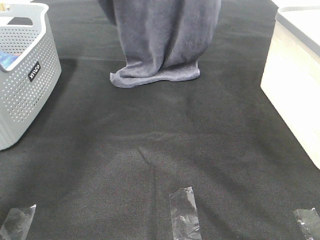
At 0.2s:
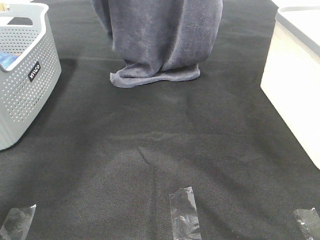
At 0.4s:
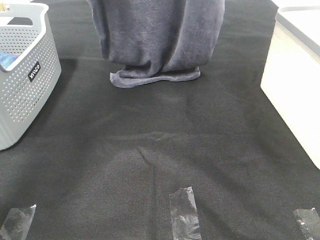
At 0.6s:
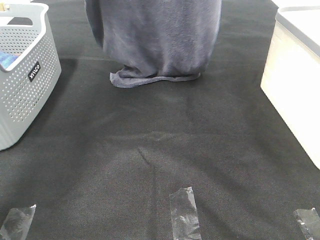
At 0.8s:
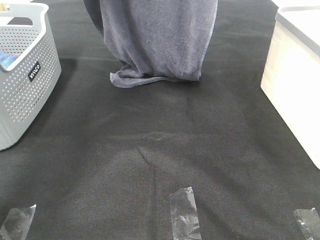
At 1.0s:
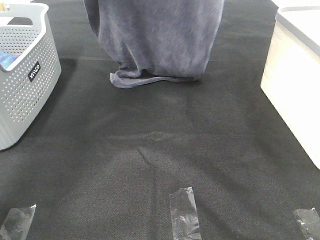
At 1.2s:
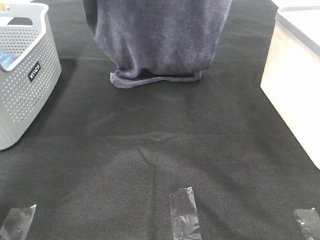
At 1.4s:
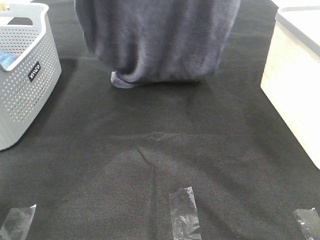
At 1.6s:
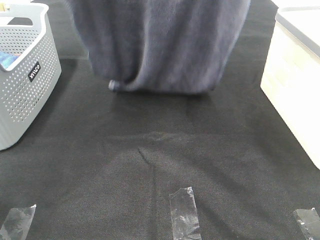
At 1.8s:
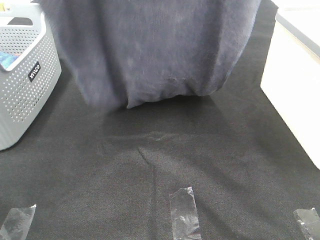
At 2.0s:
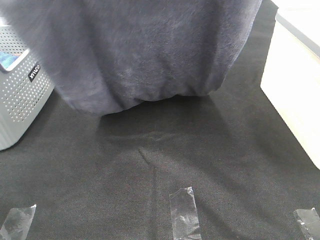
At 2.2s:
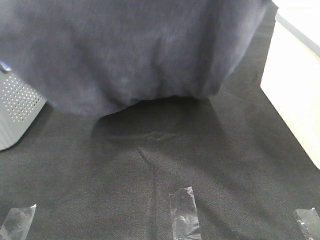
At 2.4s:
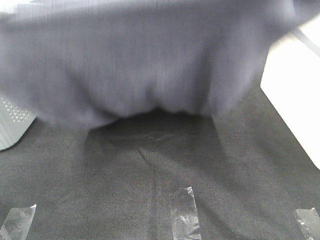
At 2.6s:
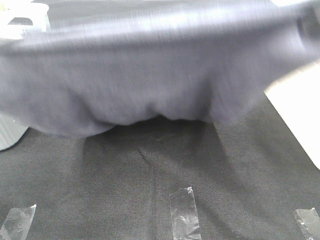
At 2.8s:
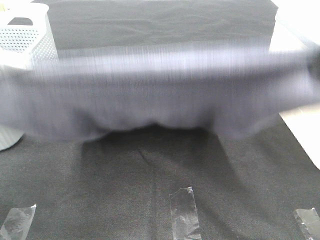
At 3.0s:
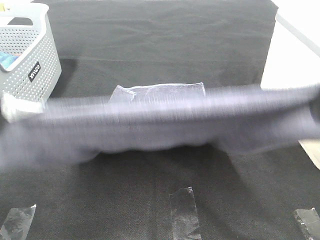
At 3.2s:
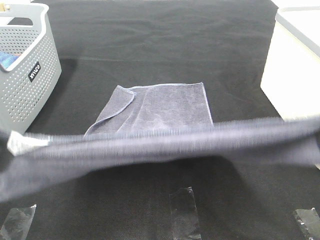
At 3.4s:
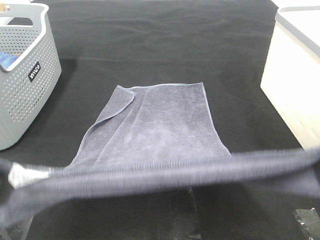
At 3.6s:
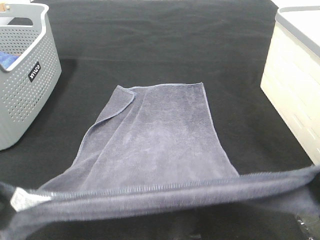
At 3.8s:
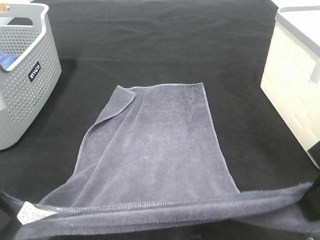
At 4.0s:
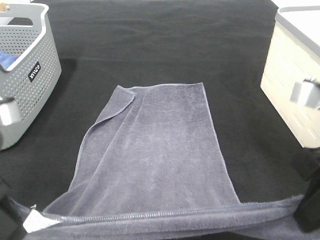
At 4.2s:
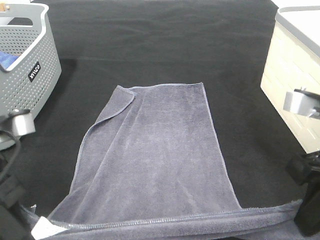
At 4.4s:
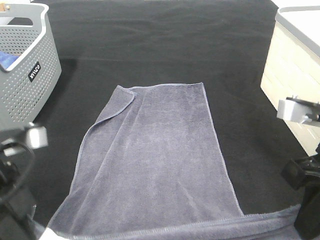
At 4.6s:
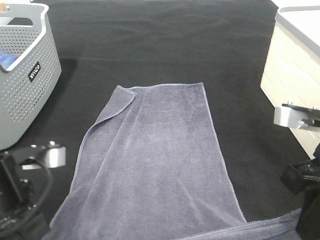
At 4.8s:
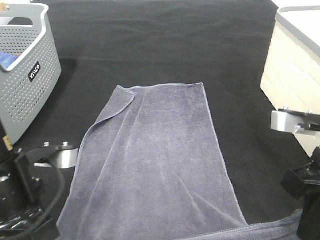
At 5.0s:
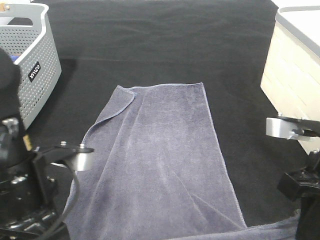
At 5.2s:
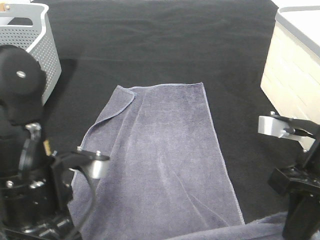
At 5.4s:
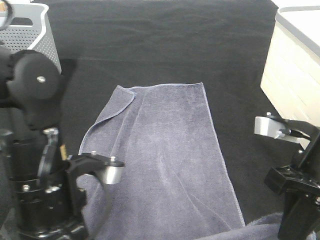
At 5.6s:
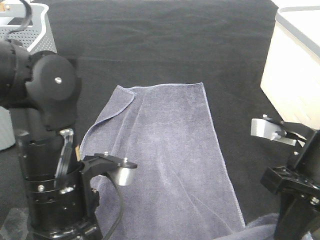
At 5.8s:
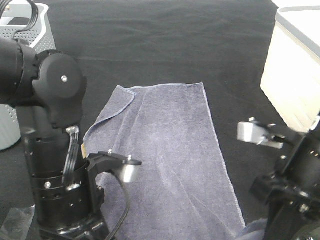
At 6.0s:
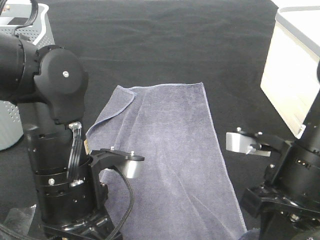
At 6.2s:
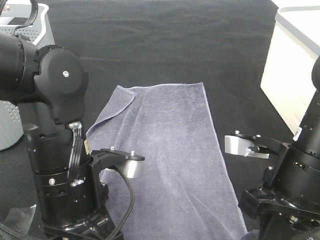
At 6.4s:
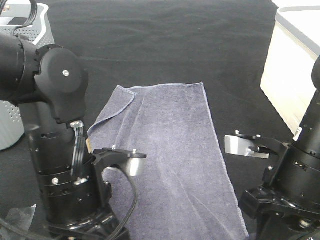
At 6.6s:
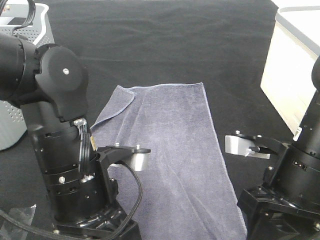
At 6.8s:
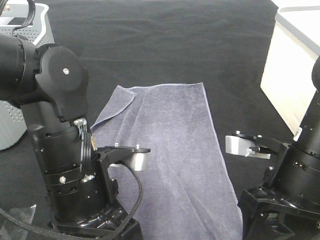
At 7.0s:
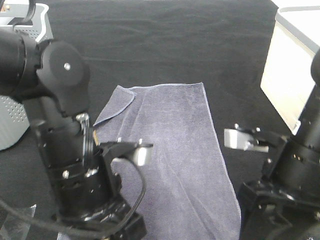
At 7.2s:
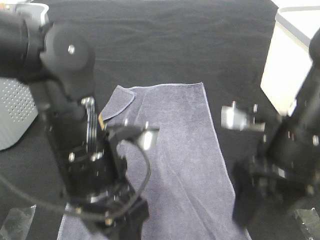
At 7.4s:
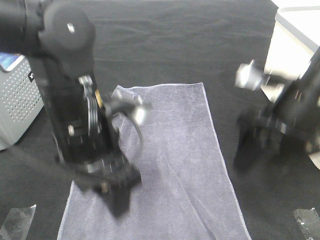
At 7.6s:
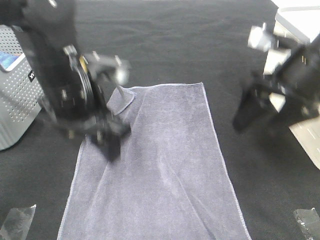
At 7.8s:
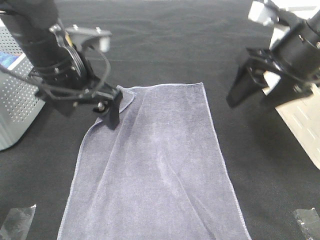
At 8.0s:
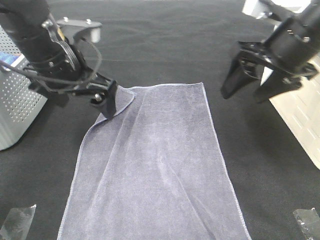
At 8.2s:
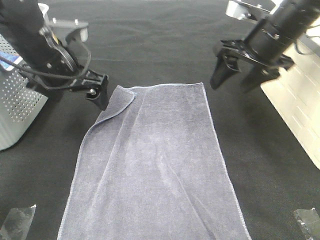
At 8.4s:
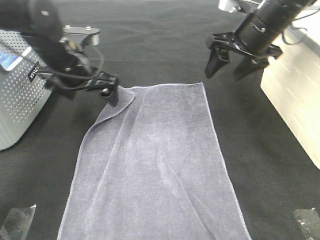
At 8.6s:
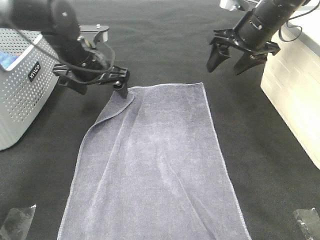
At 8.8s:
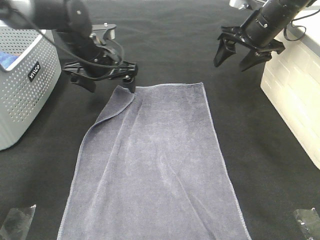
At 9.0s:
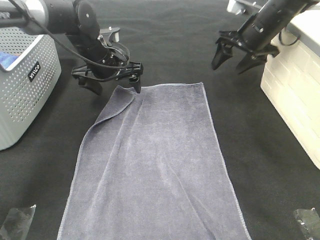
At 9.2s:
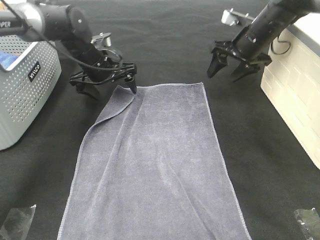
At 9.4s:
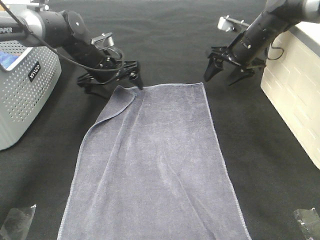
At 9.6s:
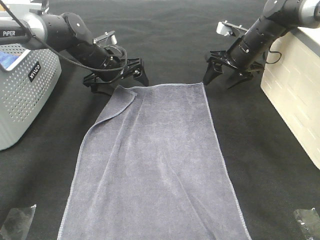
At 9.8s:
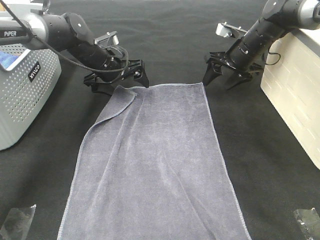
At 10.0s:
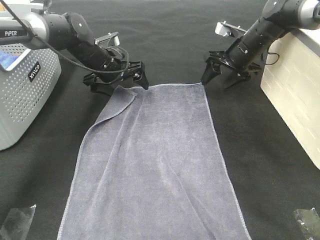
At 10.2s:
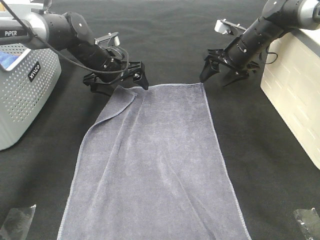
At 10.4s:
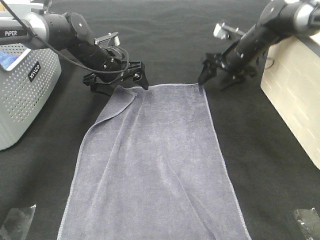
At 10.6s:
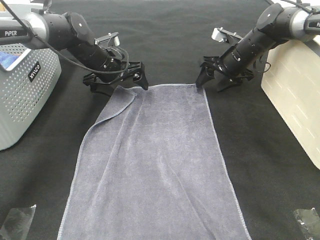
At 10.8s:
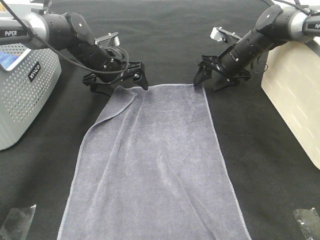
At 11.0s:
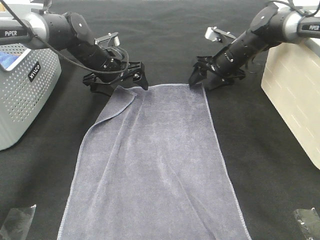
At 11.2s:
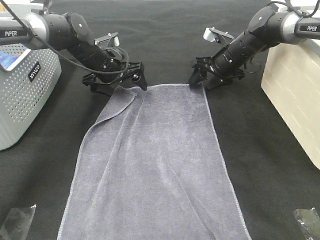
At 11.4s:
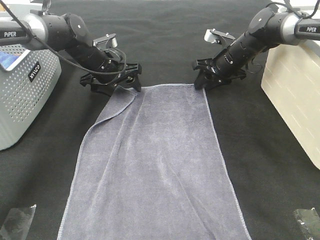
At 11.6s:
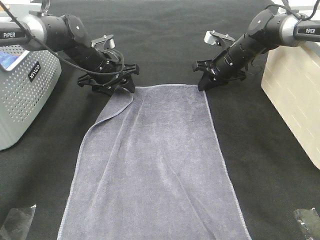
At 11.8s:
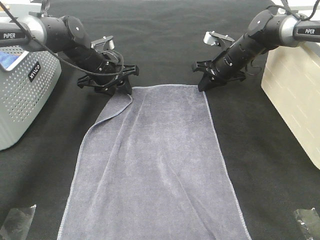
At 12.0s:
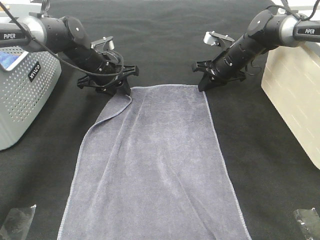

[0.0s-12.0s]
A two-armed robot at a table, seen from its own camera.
Task of the whole recording: Remove the towel and place it.
Step, 2.0s to 10.6s: Left hand:adjust the gray towel.
Step, 2.0s to 10.6s: Right hand:adjust the gray towel.
0.0s to 1.6s: Both grippers move backward, some 15 cm.
1.6s to 3.0s: Both grippers move downward and backward, approximately 20 cm.
3.0s to 4.4s: The grippers both shift downward by approximately 15 cm.
4.4s to 6.0s: The left gripper shifts roughly 10 cm to the right; the right gripper goes roughly 5 cm downward.
6.0s to 7.6s: The right gripper shifts roughly 10 cm forward and upward, and opens up, while the left gripper shifts approximately 10 cm forward, and opens its fingers.
7.6s to 9.0s: Both grippers travel together forward, approximately 20 cm.
9.0s to 10.4s: The right gripper goes approximately 10 cm downward.
10.4s to 12.0s: The left gripper closes its fingers. Meanwhile the right gripper closes its fingers.

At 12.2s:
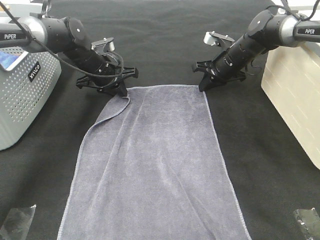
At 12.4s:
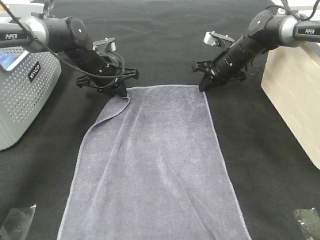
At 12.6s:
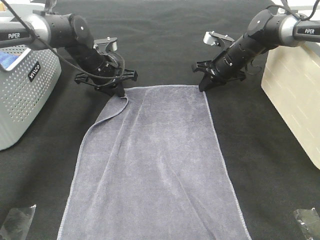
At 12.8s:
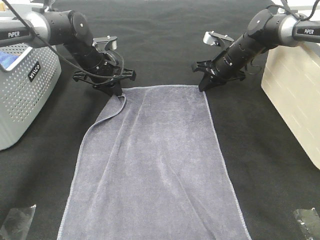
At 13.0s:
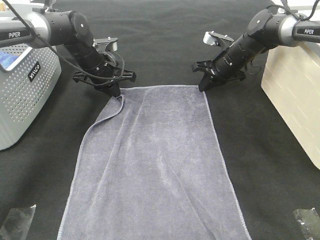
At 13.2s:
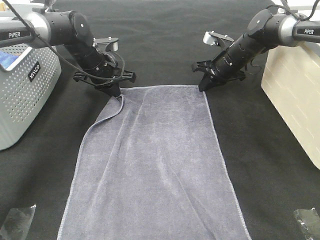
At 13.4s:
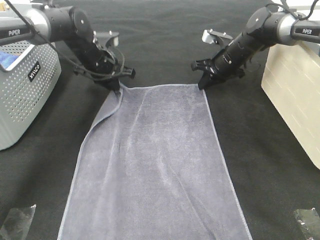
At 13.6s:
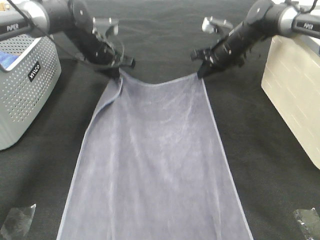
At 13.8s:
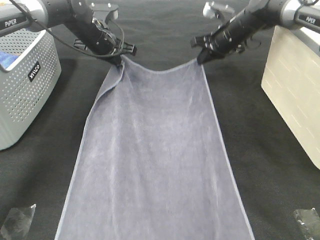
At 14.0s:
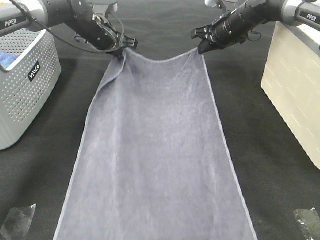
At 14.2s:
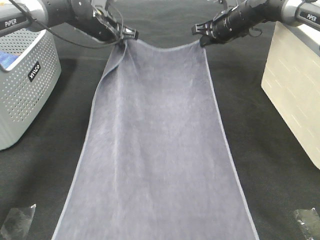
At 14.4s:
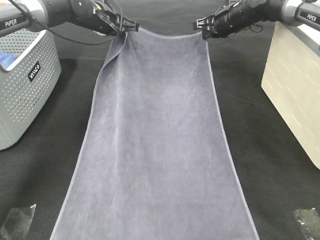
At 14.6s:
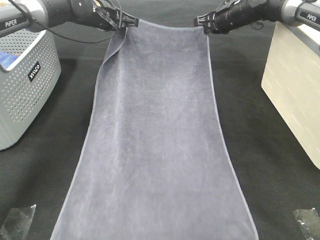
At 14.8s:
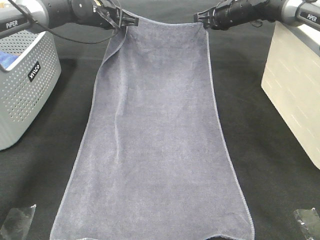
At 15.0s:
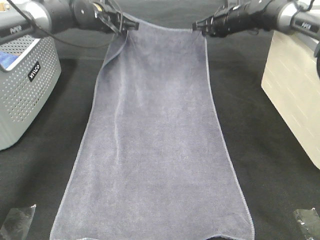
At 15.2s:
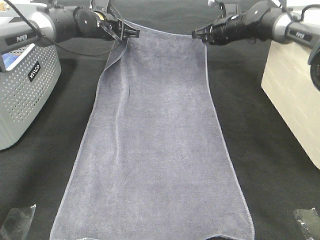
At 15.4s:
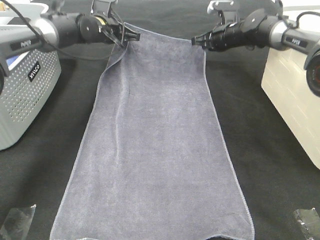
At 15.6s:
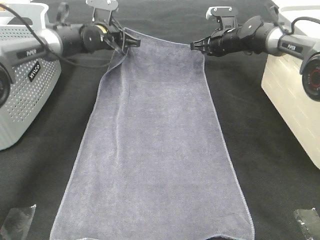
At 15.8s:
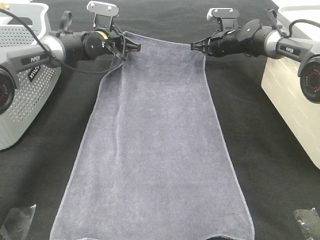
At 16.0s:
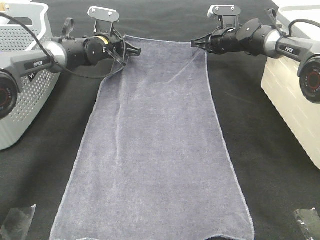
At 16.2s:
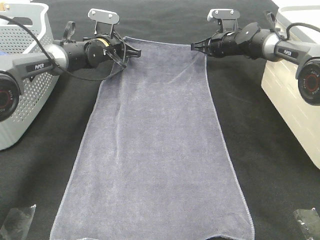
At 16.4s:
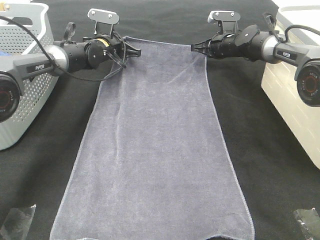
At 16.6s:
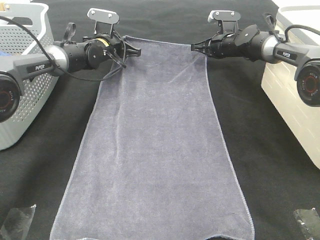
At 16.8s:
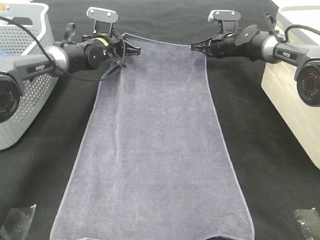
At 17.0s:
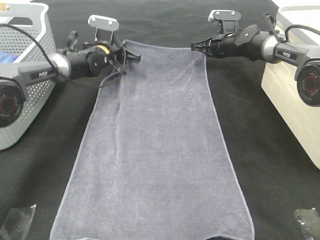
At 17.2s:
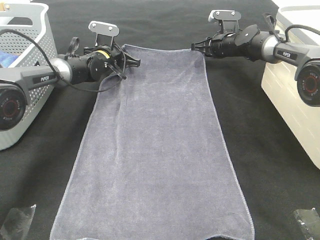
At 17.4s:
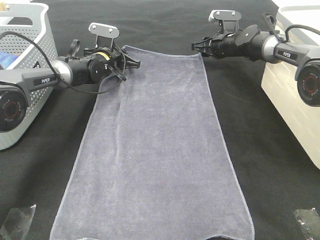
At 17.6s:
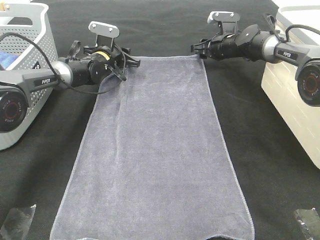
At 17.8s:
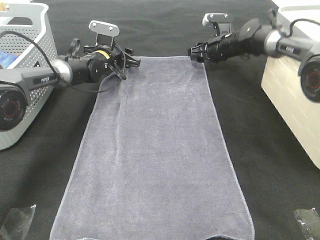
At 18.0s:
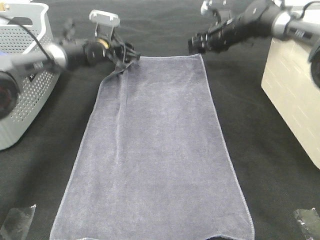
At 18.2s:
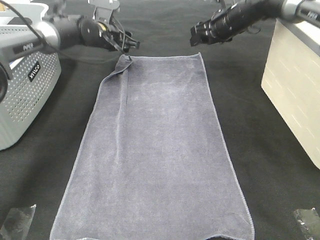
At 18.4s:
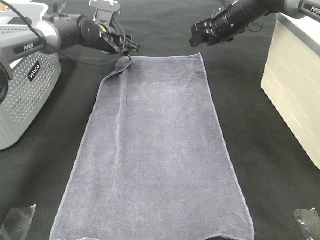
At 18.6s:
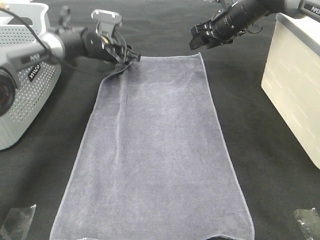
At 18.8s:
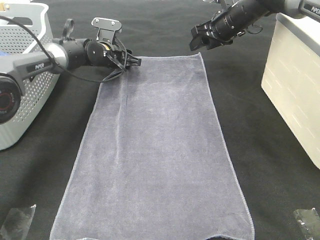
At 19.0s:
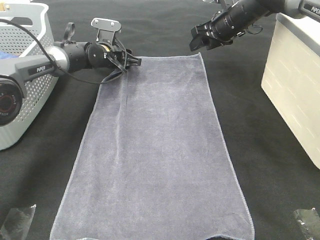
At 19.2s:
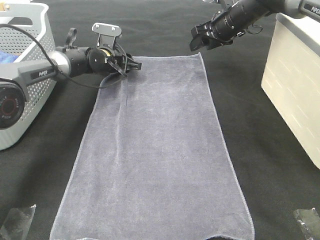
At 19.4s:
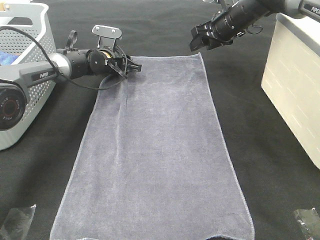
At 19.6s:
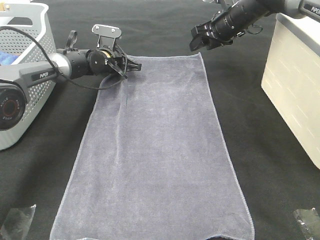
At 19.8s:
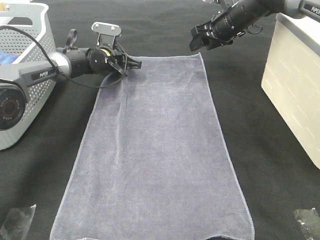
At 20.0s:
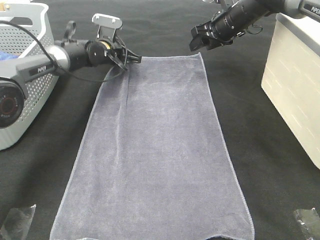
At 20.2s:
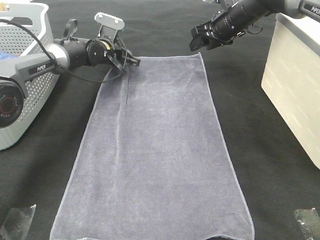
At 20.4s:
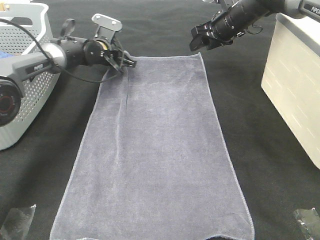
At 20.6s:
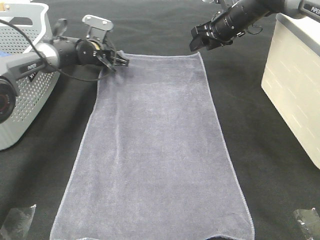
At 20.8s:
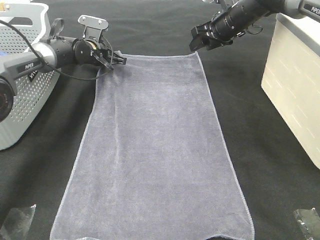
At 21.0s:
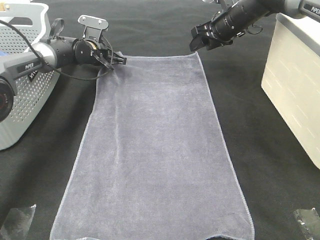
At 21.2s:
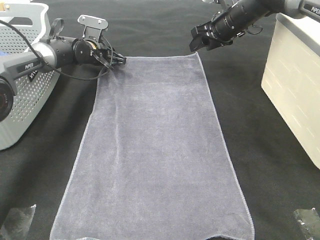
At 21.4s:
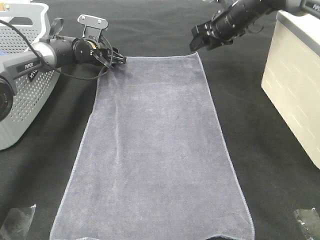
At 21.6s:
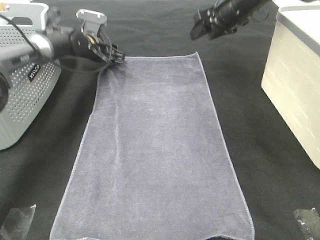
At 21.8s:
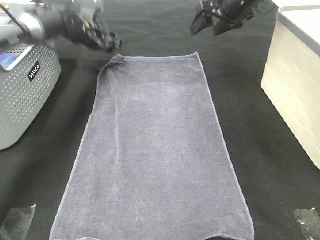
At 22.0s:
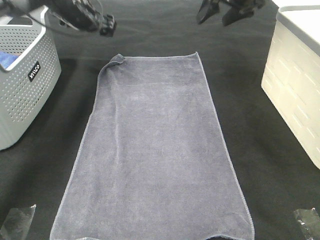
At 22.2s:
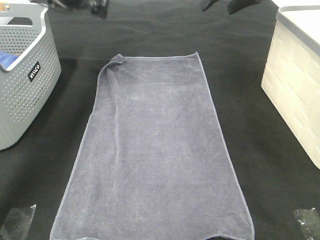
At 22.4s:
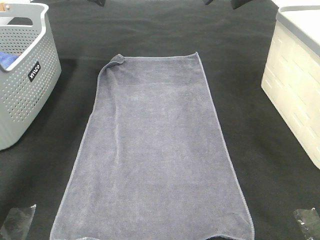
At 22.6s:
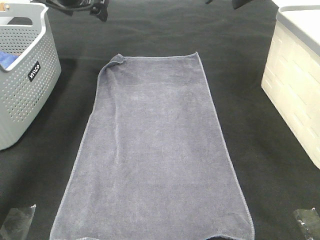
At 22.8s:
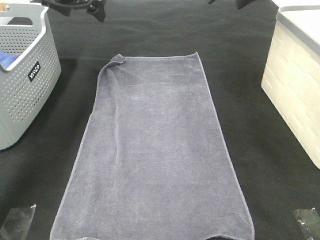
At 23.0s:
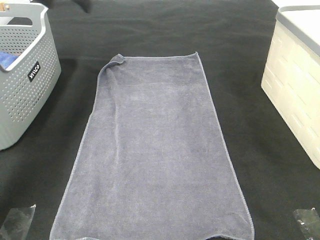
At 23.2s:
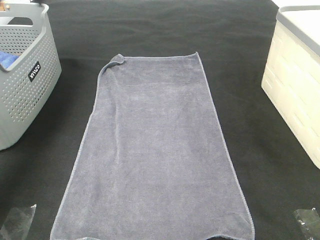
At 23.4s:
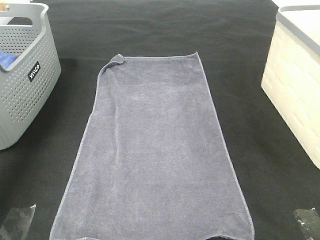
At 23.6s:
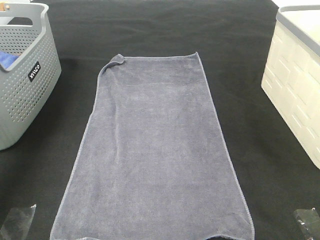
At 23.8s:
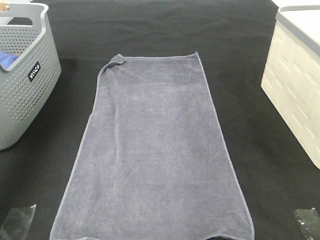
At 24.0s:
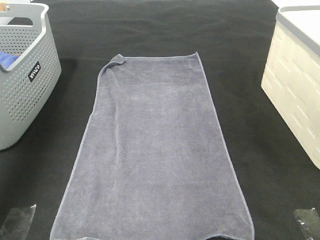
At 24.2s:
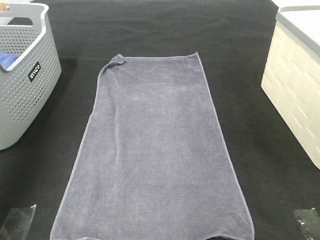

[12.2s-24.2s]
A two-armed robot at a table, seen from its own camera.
Task of the whole recording: Remove the towel and place it.
12.2s to 13.8s: Both grippers move upward, about 5 cm.
15.2s to 16.6s: The left gripper travels downward by some 5 cm.
16.6s to 18.2s: The right gripper goes some 10 cm upward, and opens its fingers. The left gripper opens.
18.2s to 19.8s: The left gripper moves downward, roughly 5 cm, and closes up.
19.8s to 21.2s: The left gripper opens its fingers.
21.2s to 22.6s: The right gripper heads upward and backward, covering roughly 15 cm, while the left gripper moves upward, some 20 cm, and opens.
22.6s to 24.2s: The left gripper travels backward, to the left and upward by about 35 cm. Meanwhile the right gripper is displaced backward by approximately 35 cm.
